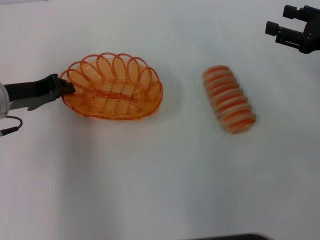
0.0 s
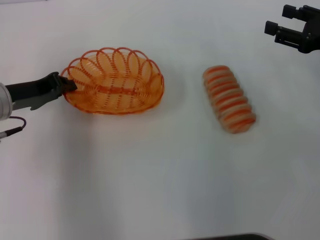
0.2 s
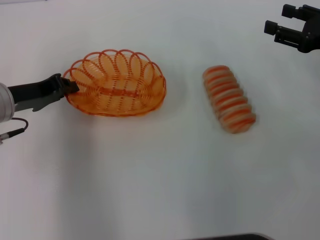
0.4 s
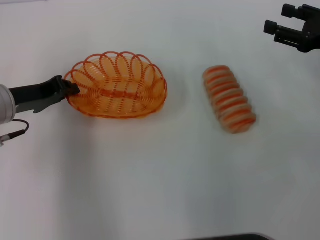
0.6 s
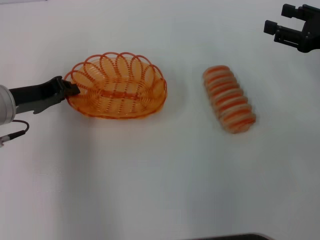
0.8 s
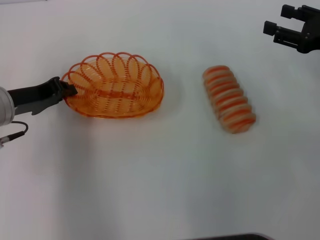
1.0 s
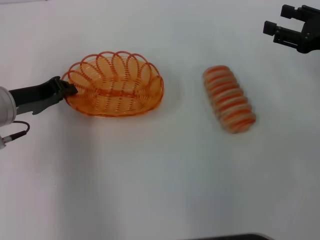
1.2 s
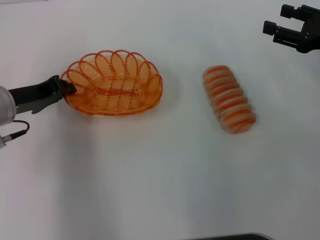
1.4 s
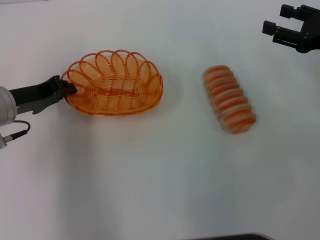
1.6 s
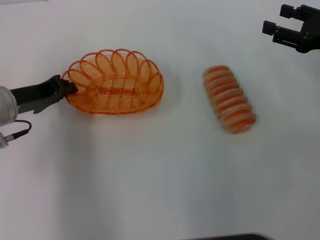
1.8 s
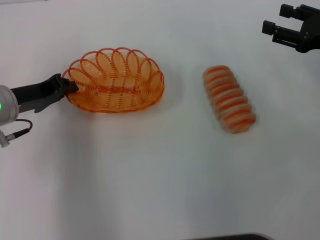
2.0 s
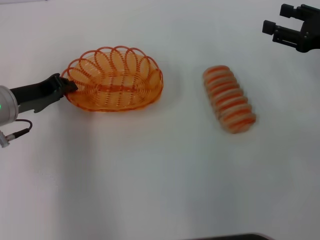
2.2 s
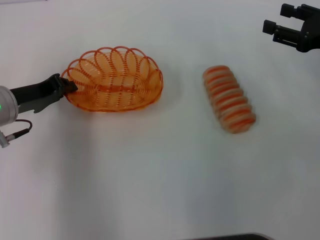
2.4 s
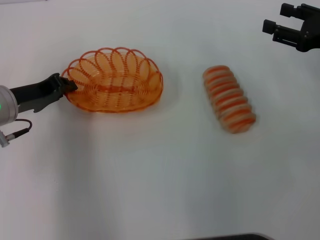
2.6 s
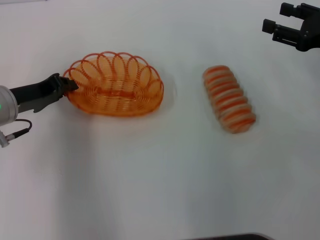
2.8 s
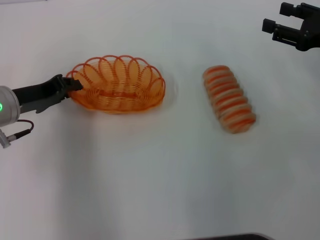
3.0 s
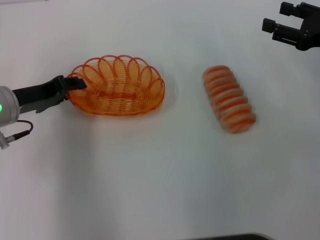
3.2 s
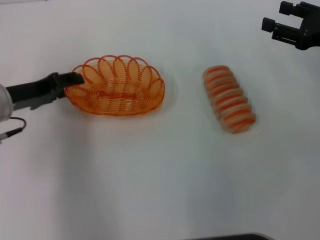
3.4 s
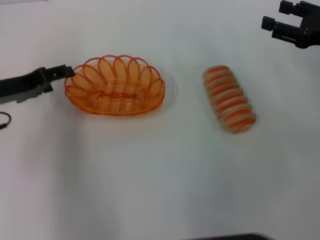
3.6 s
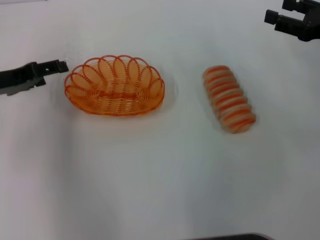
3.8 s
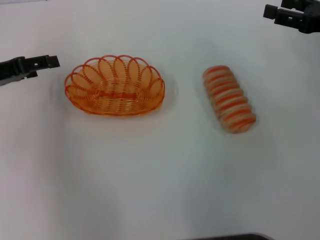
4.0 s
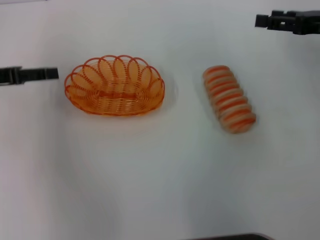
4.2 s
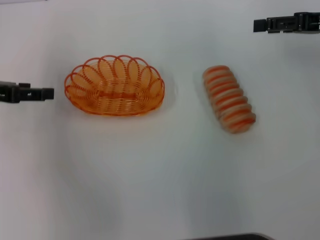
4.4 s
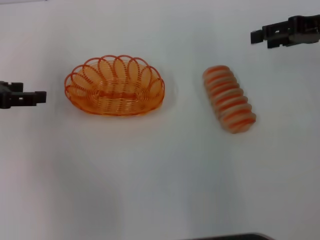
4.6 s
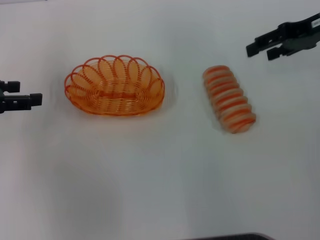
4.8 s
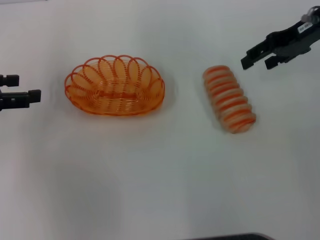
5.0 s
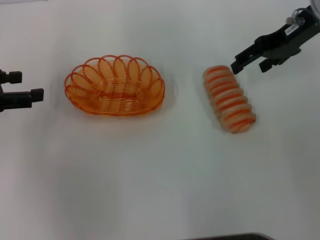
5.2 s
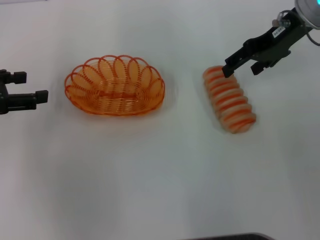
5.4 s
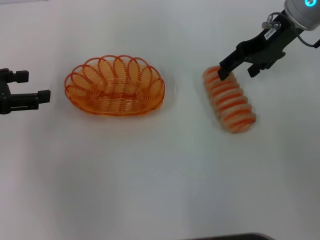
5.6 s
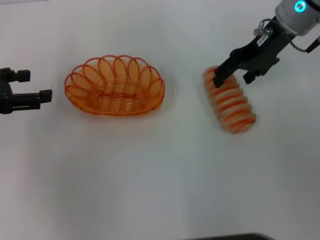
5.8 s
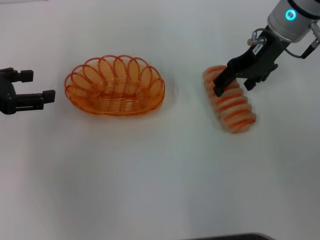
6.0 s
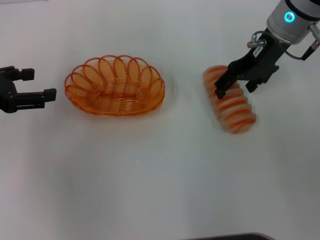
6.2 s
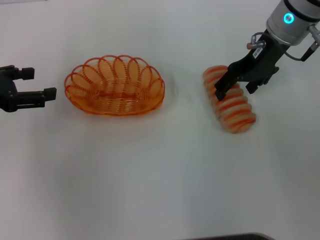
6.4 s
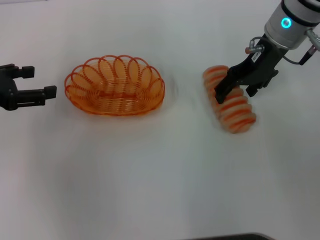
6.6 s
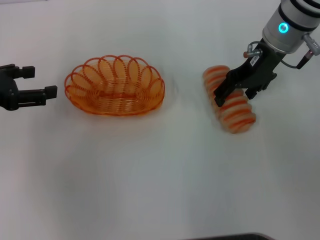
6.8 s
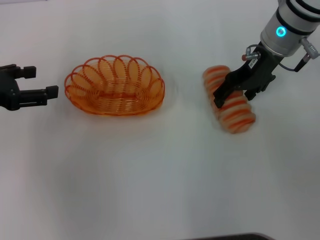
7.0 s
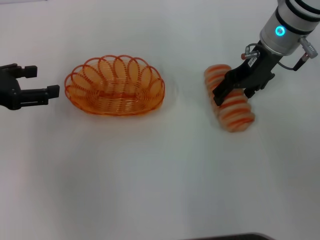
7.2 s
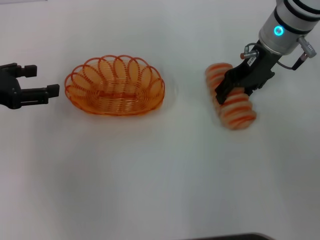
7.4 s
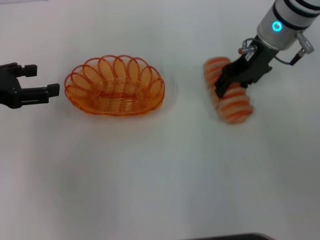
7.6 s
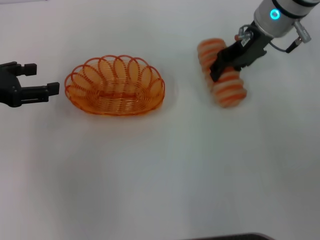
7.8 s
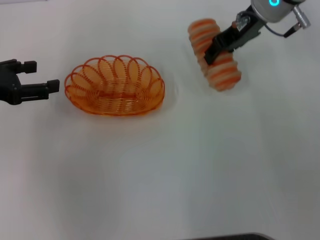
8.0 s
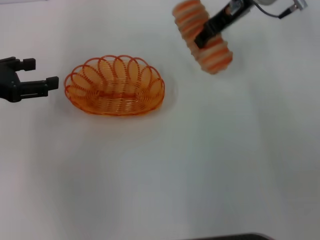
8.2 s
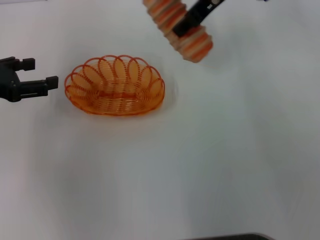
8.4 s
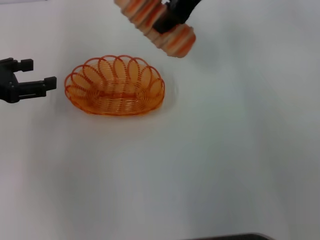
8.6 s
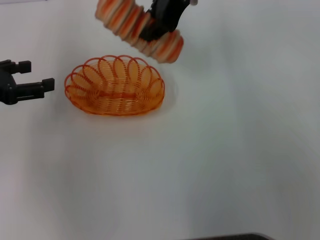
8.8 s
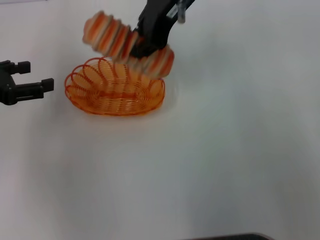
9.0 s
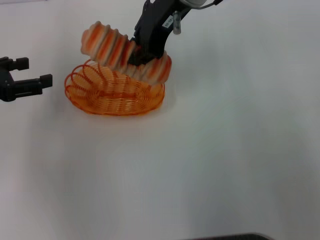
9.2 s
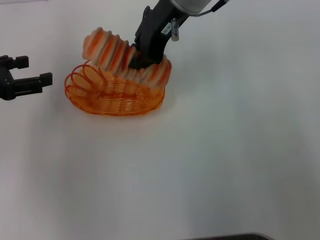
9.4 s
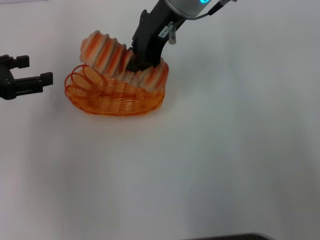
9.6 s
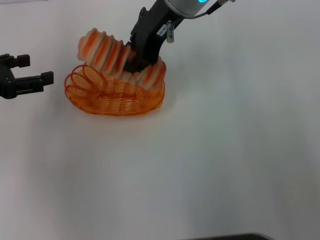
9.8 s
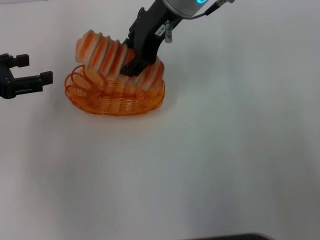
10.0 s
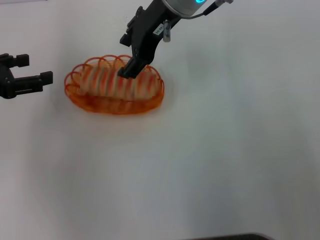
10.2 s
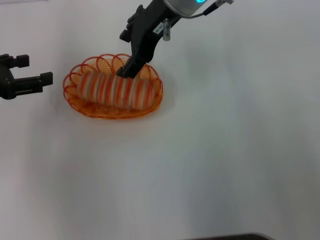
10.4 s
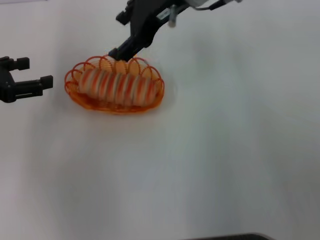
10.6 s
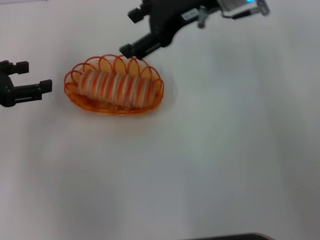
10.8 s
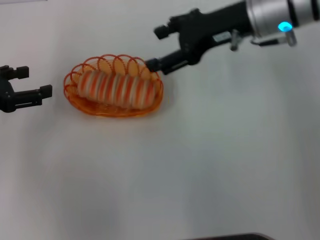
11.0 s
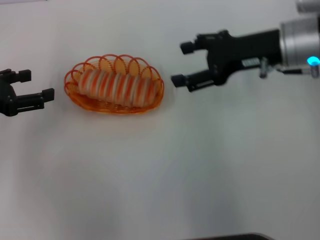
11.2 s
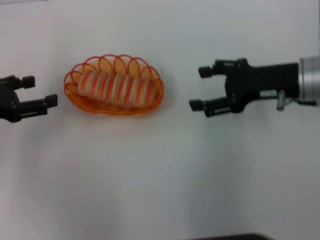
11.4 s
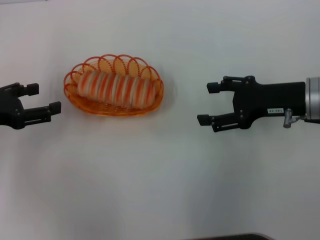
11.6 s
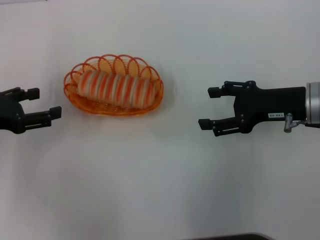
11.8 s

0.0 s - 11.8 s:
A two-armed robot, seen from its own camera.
Step, 0.0 s - 3.6 s: Place the basket in the center of view with the left gripper.
Step, 3.8 s - 7.6 s: Pick up the long bread with the right gripper.
Step, 7.8 s - 10.4 s: Place the long bread into the basket with the right gripper.
0.0 s - 1.4 s: The grippers stay close to where they were, moving slightly.
1.4 s - 3.0 s: Neither gripper changes place.
3.0 s - 4.4 s: The left gripper heads to the left and upward, covering approximately 10 cm, and opens. Meanwhile the right gripper moves about 5 cm.
4.4 s - 6.0 s: The right gripper travels to the left and forward by approximately 15 cm.
6.0 s - 7.4 s: The grippers stay close to where they were, moving slightly.
7.4 s - 8.8 s: The right gripper goes about 15 cm upward and to the left, and closes up.
8.8 s - 10.4 s: The right gripper moves about 5 cm, and opens.
10.4 s - 11.8 s: The right gripper goes about 25 cm to the right, downward and backward.
